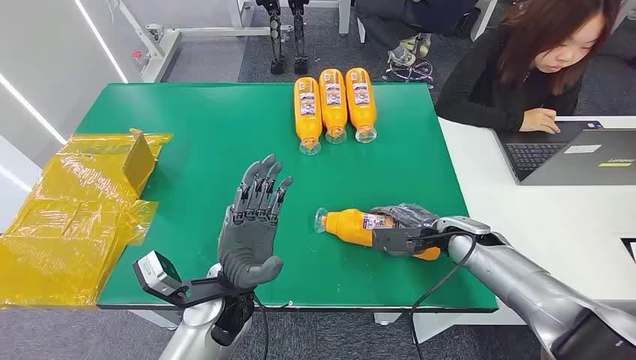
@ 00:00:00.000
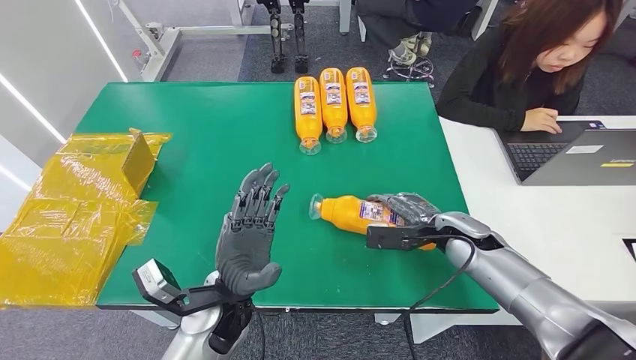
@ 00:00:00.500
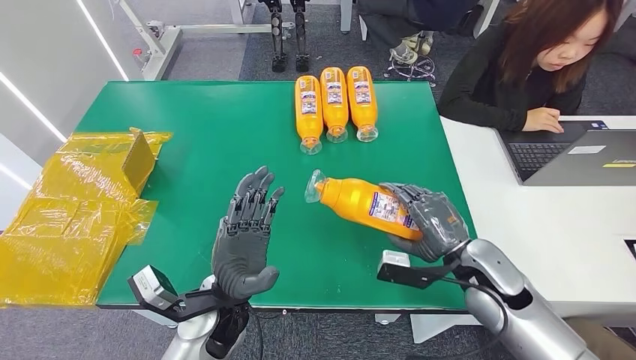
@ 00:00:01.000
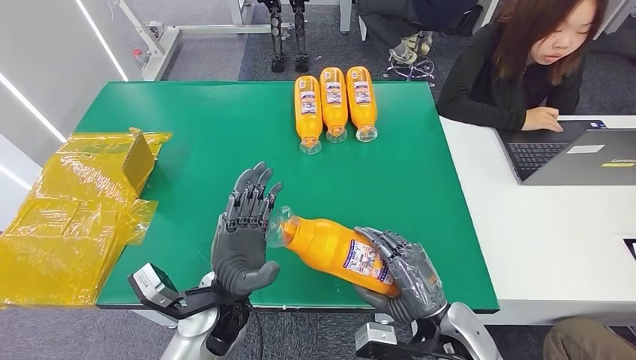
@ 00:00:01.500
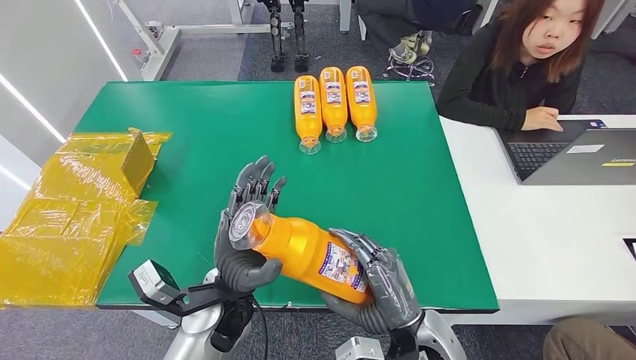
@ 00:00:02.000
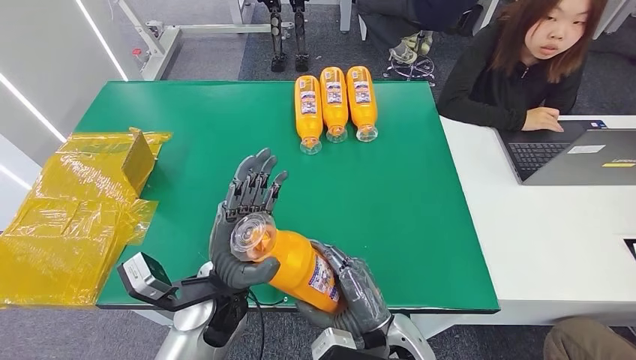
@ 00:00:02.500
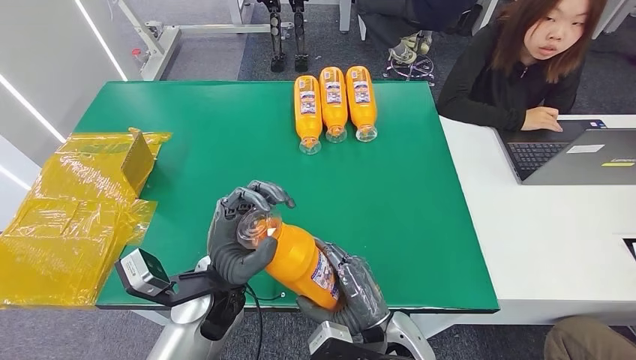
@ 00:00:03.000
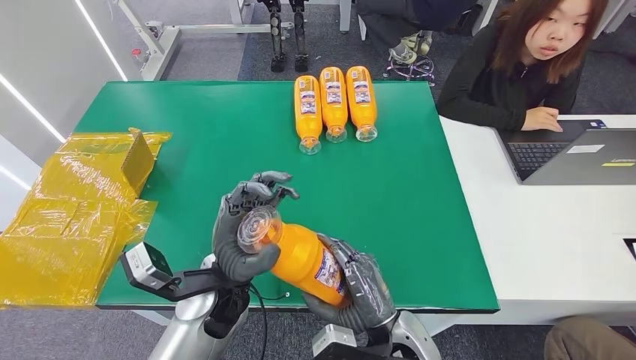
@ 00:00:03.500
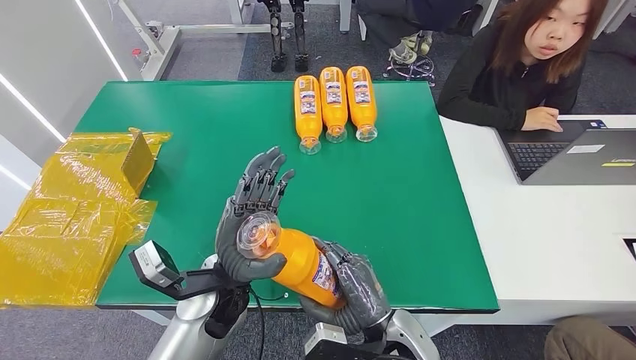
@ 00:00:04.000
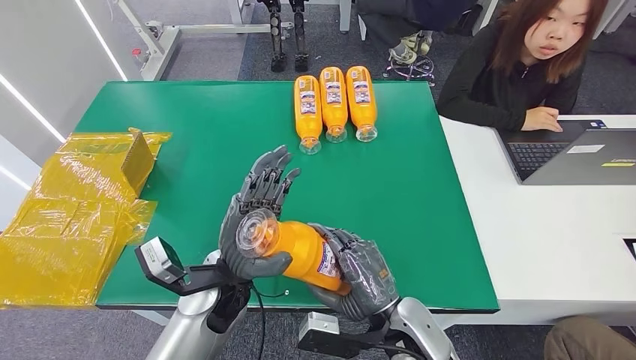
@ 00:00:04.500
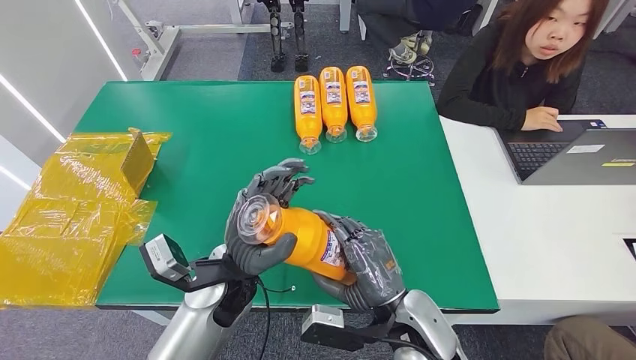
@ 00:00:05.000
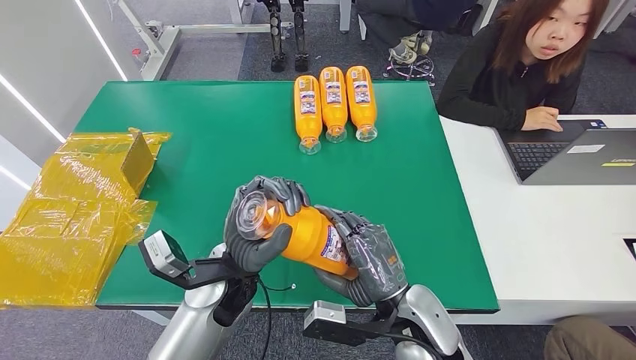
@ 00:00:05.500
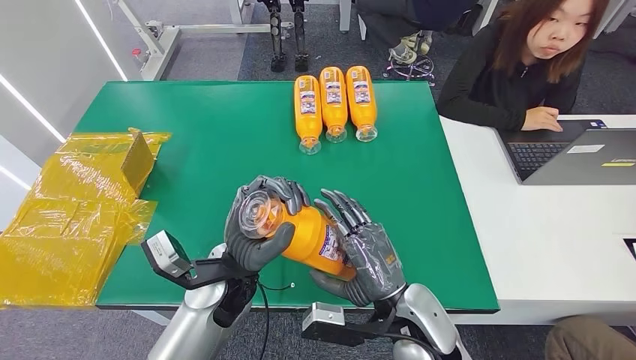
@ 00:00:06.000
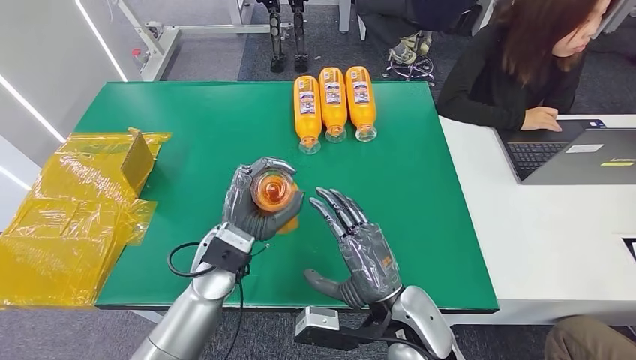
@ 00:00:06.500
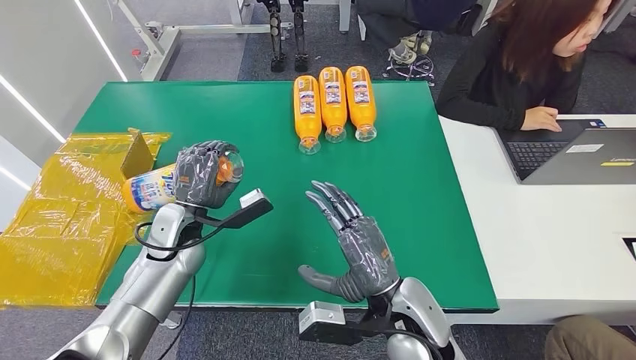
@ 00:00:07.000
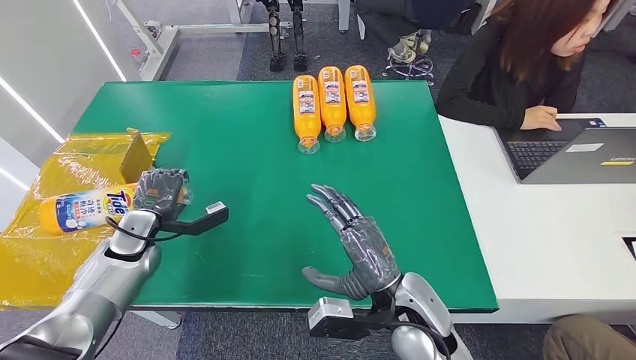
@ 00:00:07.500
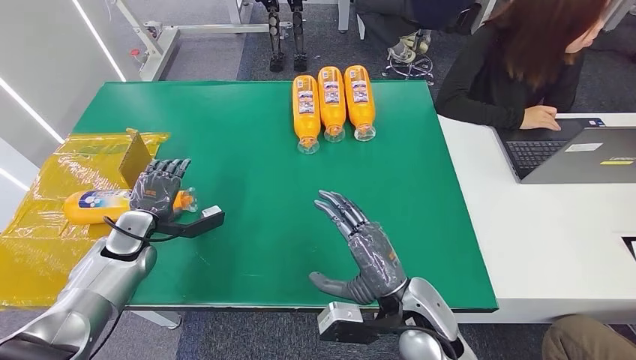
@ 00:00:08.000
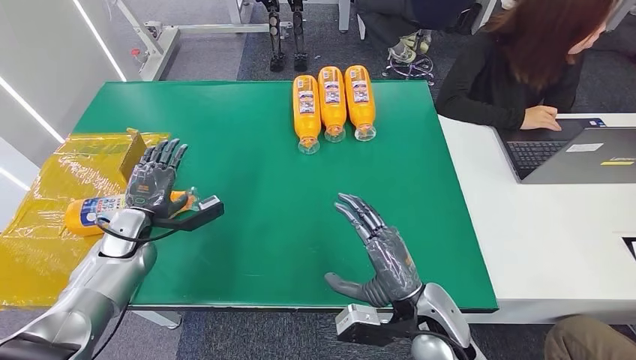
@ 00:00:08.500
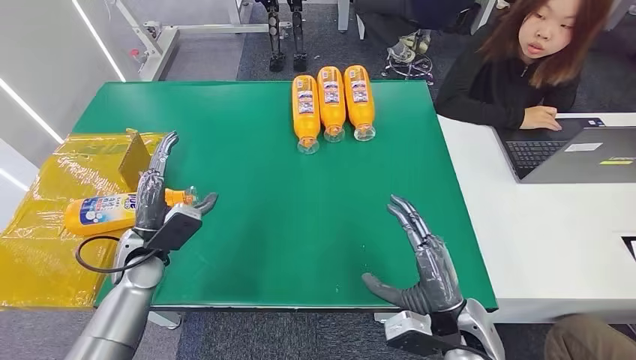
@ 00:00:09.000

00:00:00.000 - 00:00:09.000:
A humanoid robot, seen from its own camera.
Step, 00:00:00.000 - 00:00:03.000: Pick up the bottle from the table.
Step, 00:00:03.500 - 00:00:08.500: Turn the bottle to the front side.
00:00:02.000 - 00:00:04.500: The hands make only small movements.
00:00:04.500 - 00:00:07.000: The left hand travels to the left and forward by about 15 cm.
00:00:07.000 - 00:00:09.000: The right hand is displaced to the right by roughly 10 cm. The left hand travels to the left by about 5 cm.

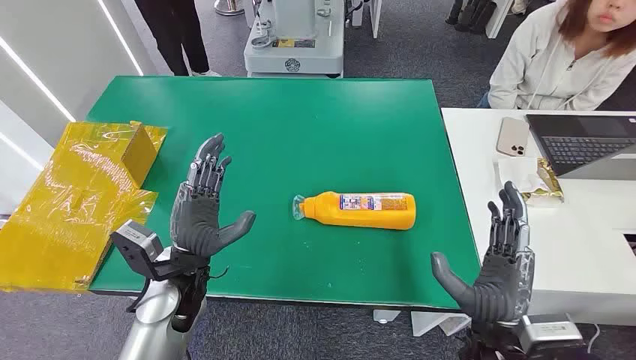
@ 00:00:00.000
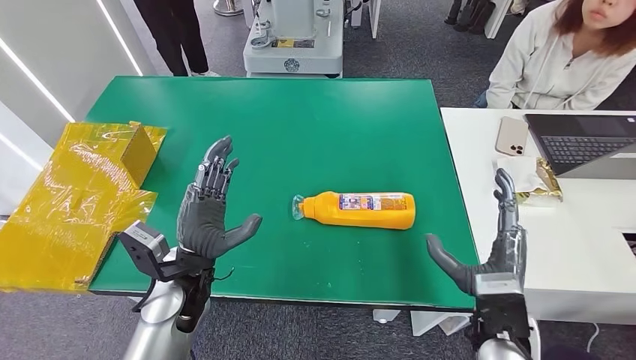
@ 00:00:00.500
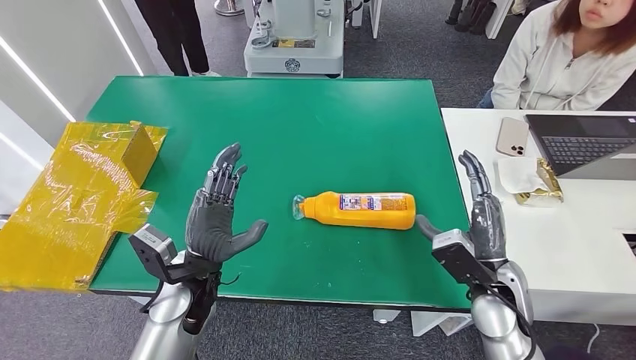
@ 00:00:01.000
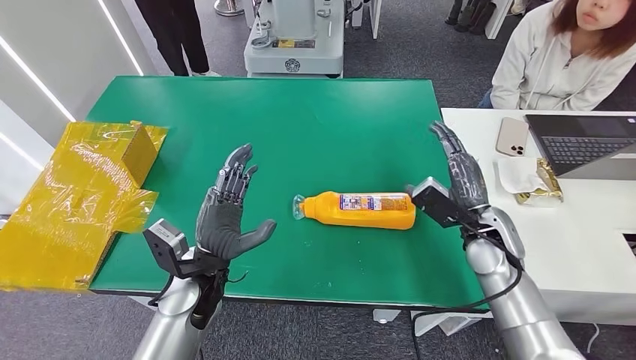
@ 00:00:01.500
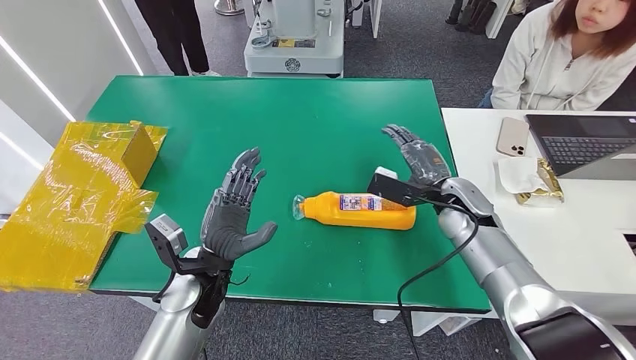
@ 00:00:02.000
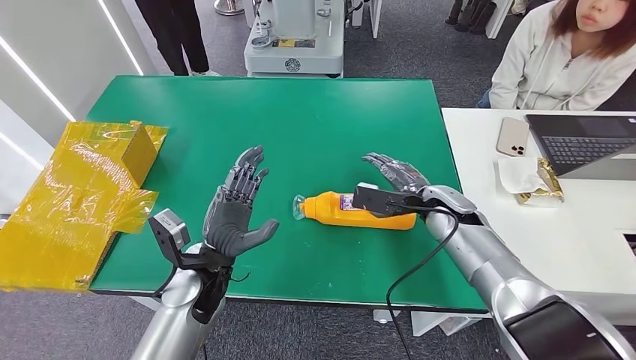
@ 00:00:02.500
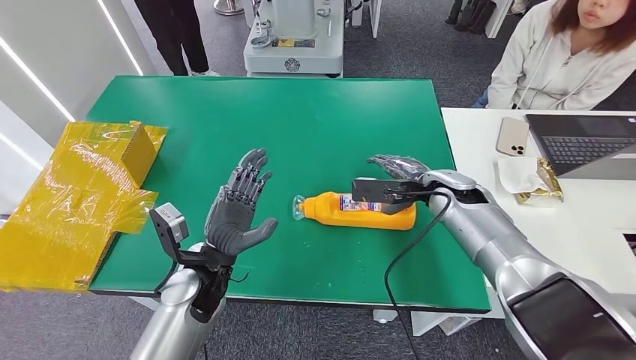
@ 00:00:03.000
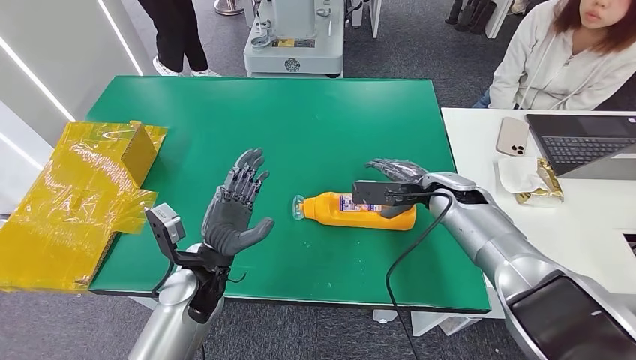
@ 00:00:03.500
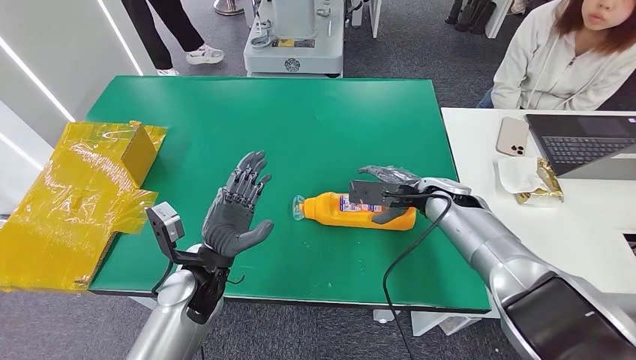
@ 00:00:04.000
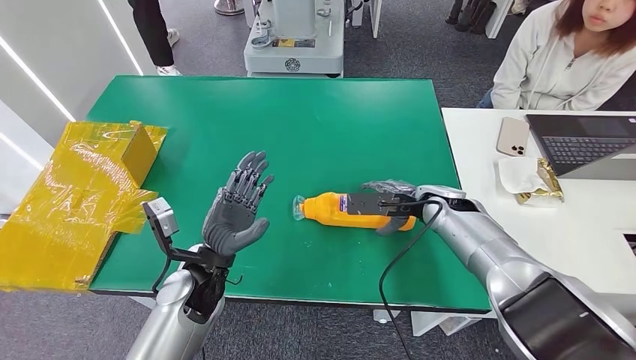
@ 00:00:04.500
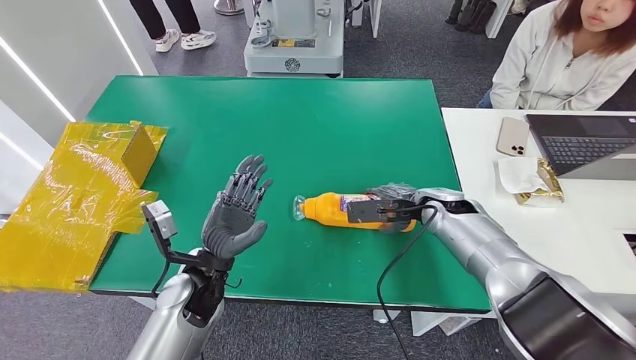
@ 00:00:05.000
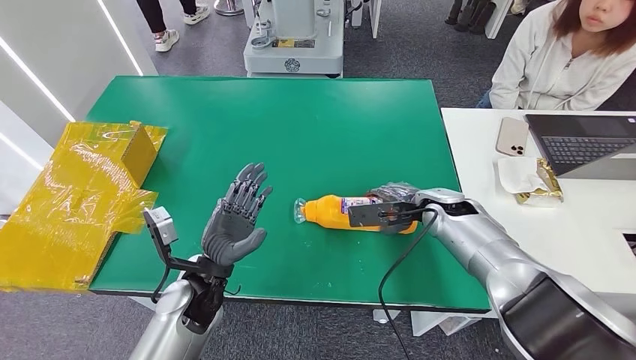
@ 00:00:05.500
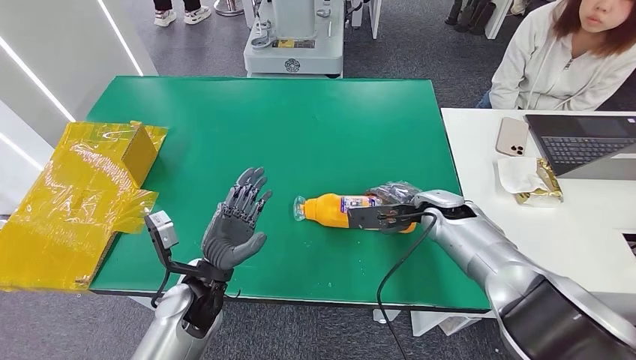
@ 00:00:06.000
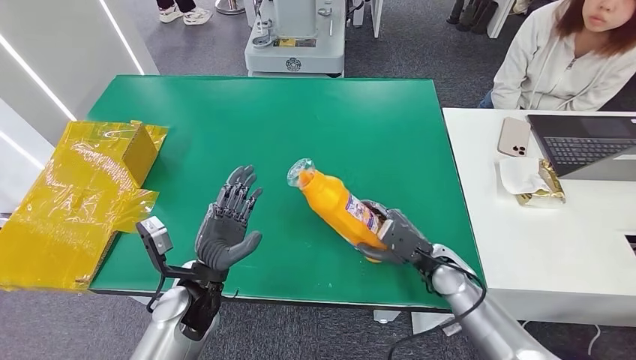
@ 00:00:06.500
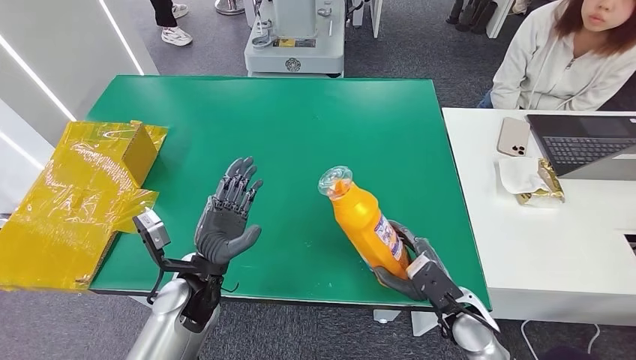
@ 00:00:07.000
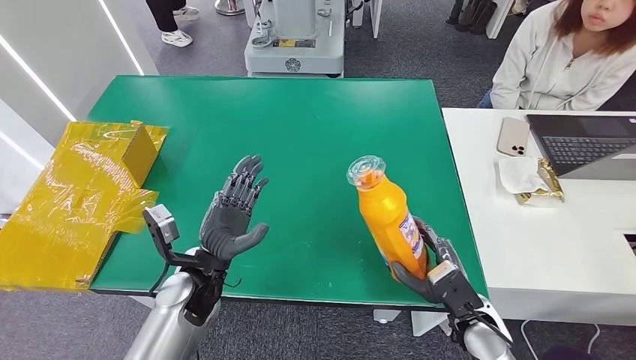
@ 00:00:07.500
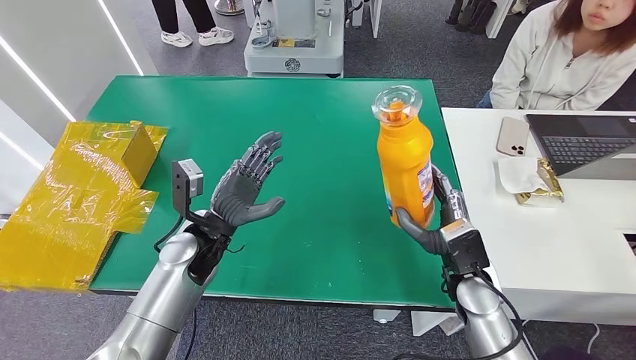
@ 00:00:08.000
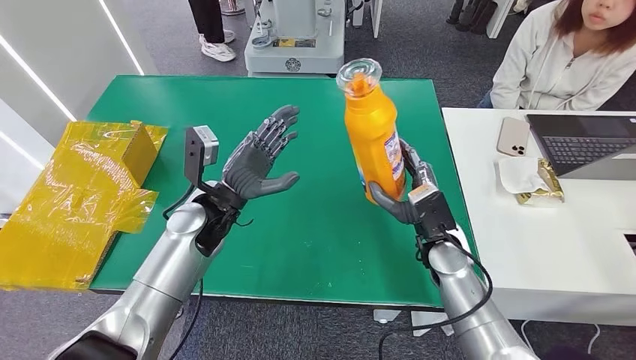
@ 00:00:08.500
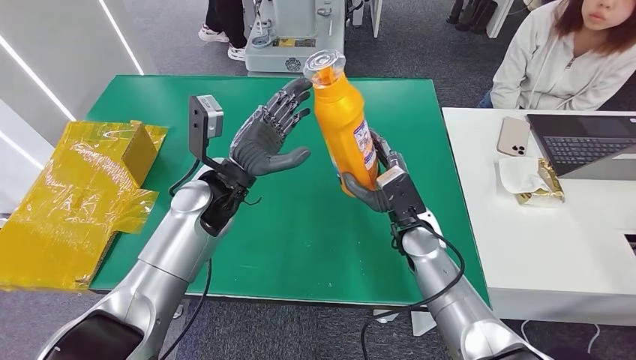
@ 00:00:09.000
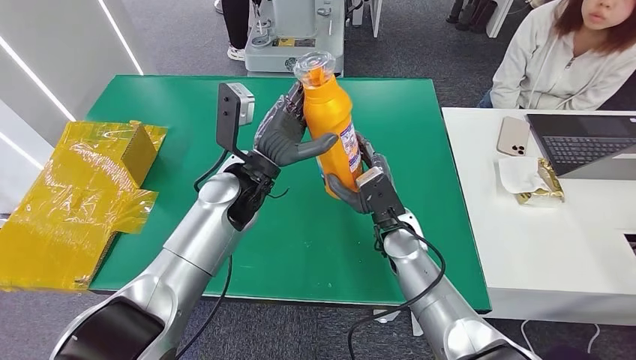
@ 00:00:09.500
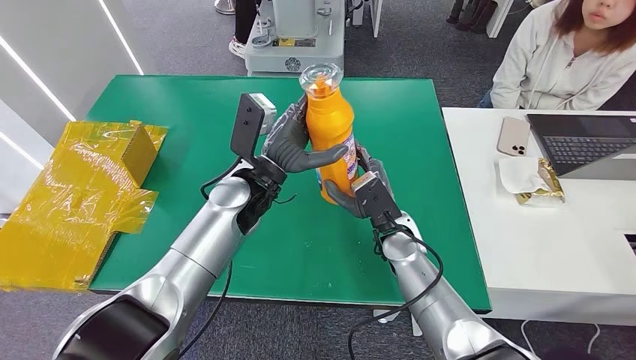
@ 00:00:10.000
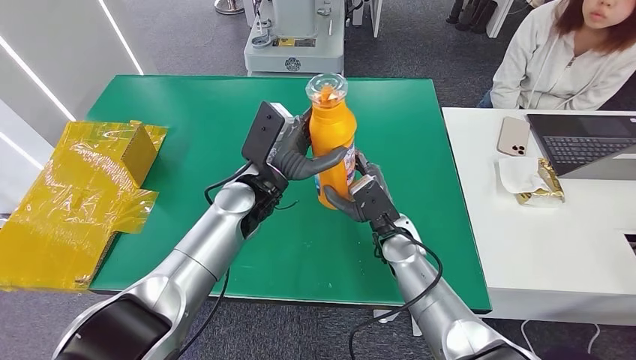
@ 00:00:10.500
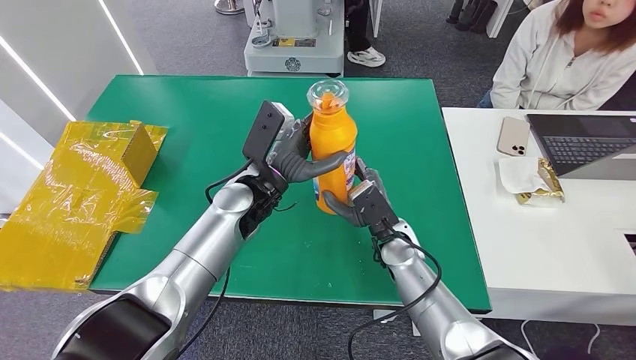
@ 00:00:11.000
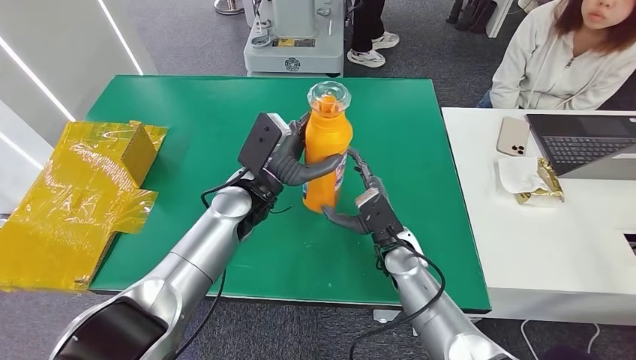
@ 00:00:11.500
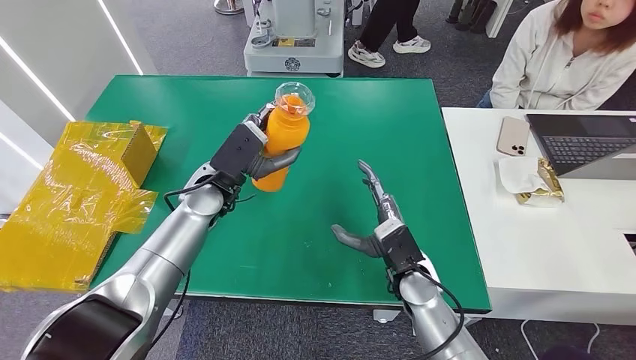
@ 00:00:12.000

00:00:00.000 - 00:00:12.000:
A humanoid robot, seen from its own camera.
Step, 00:00:00.000 - 00:00:09.000: Pick up the bottle from the table.
00:00:04.000 - 00:00:06.000: The hands make only small movements.
00:00:06.000 - 00:00:08.000: The right hand shifts about 15 cm backward. The left hand is displaced forward by about 10 cm.
00:00:10.000 - 00:00:12.000: The left hand moves to the left, about 10 cm, while the right hand goes some 5 cm backward.
